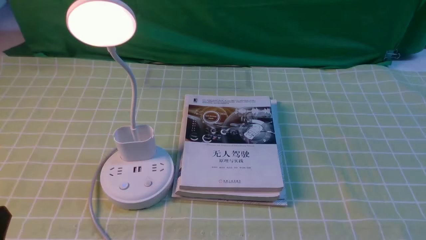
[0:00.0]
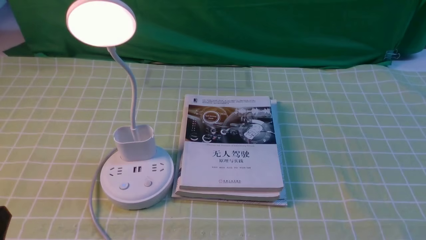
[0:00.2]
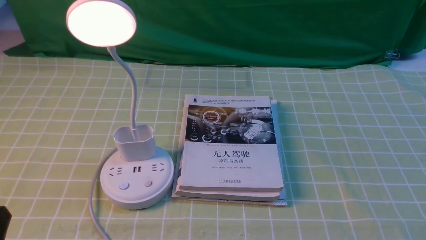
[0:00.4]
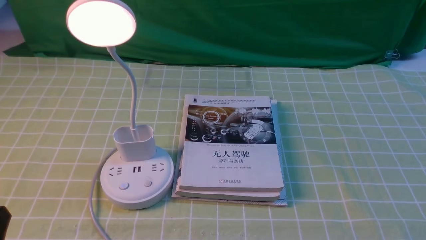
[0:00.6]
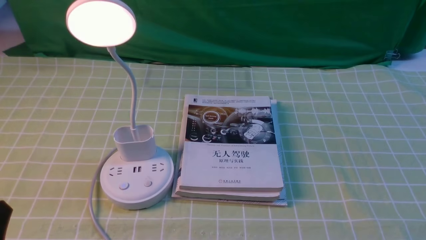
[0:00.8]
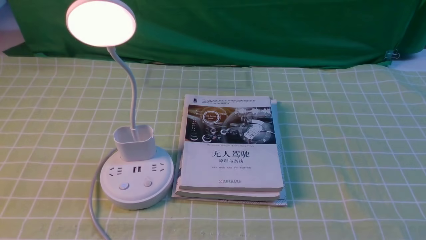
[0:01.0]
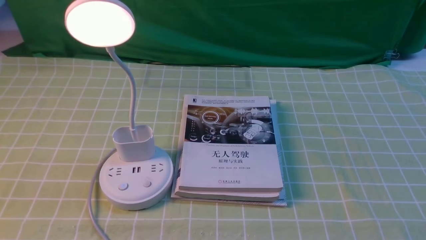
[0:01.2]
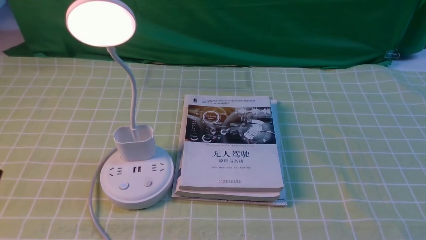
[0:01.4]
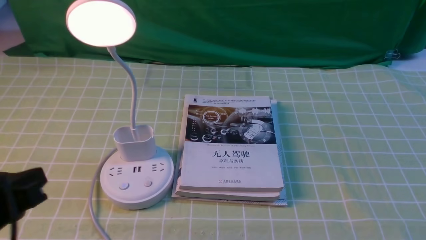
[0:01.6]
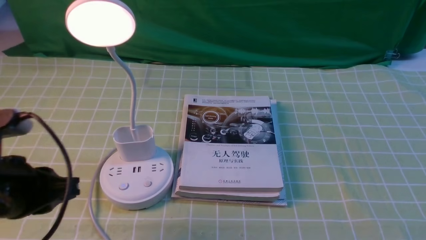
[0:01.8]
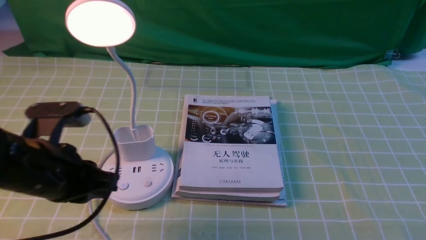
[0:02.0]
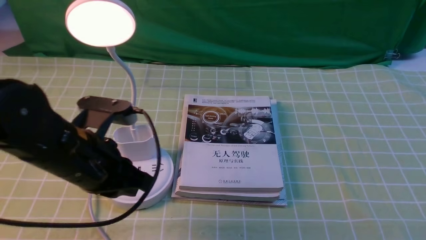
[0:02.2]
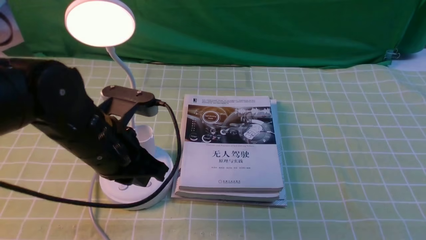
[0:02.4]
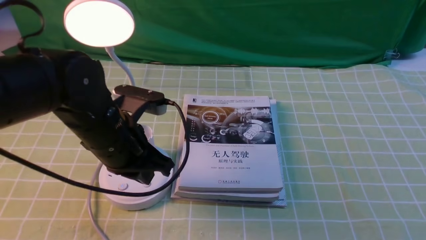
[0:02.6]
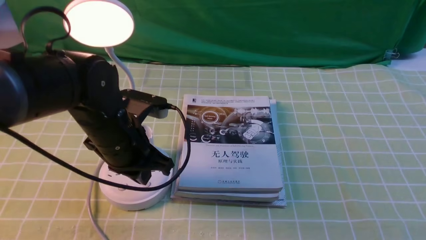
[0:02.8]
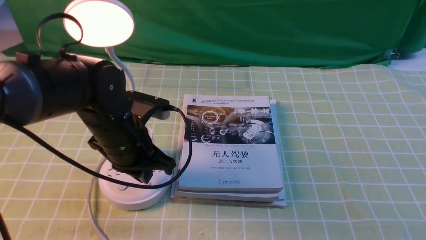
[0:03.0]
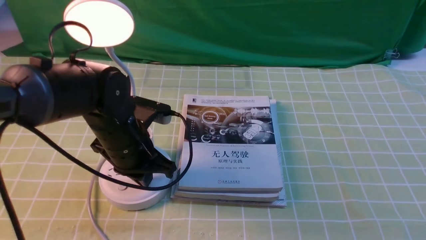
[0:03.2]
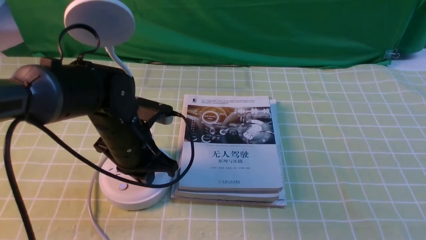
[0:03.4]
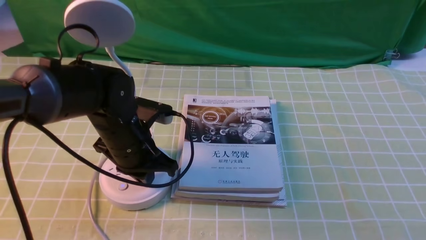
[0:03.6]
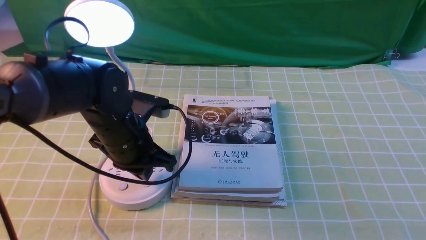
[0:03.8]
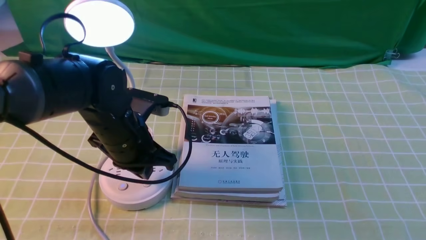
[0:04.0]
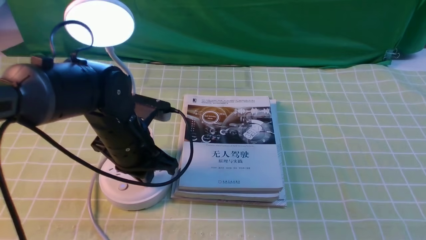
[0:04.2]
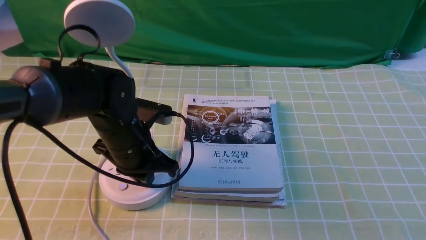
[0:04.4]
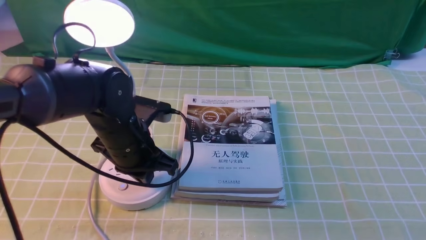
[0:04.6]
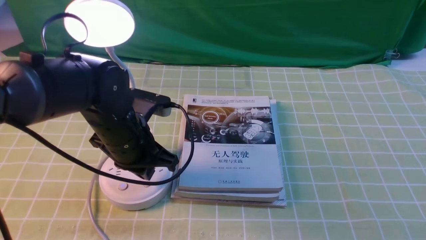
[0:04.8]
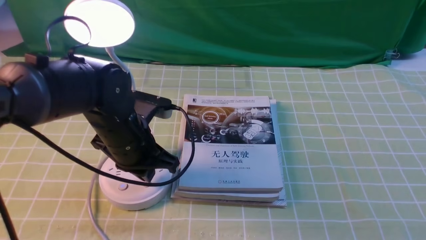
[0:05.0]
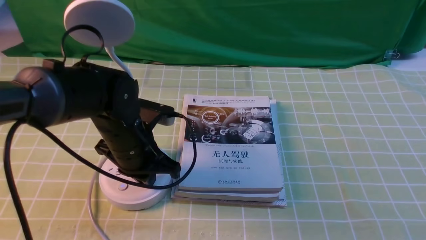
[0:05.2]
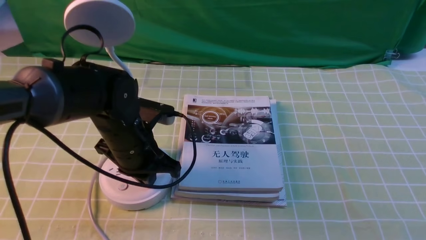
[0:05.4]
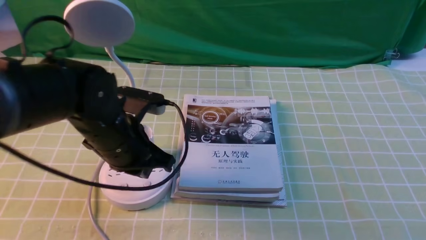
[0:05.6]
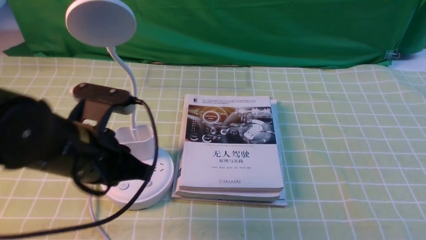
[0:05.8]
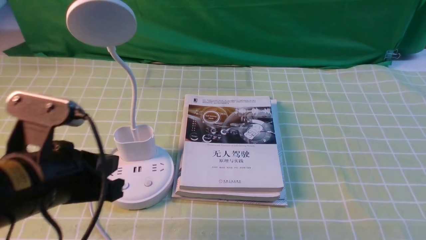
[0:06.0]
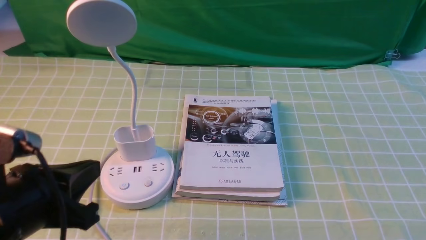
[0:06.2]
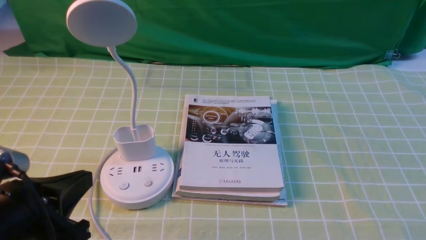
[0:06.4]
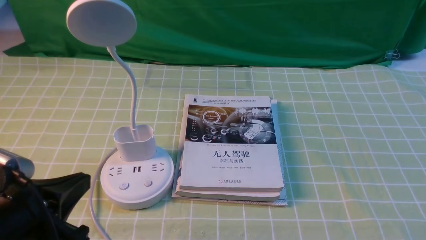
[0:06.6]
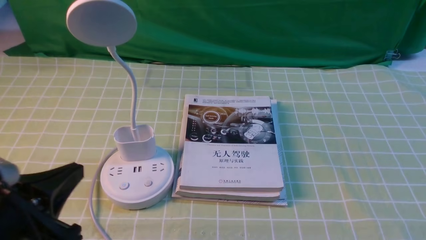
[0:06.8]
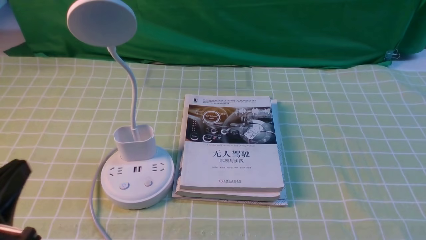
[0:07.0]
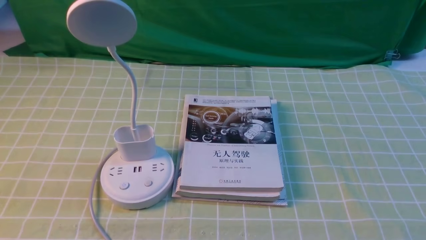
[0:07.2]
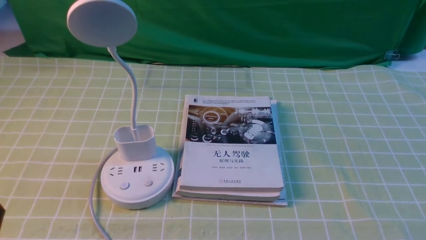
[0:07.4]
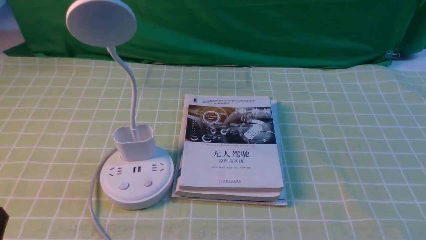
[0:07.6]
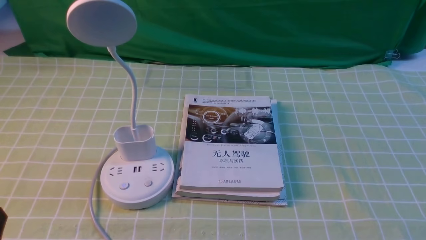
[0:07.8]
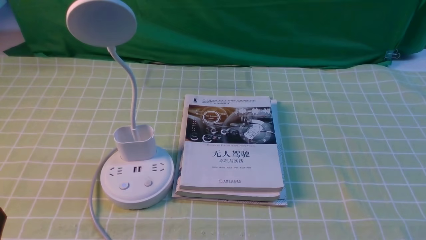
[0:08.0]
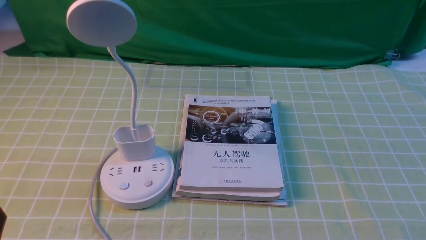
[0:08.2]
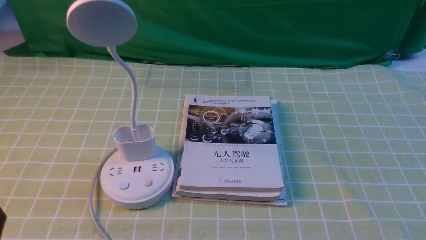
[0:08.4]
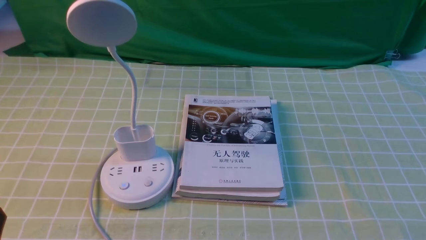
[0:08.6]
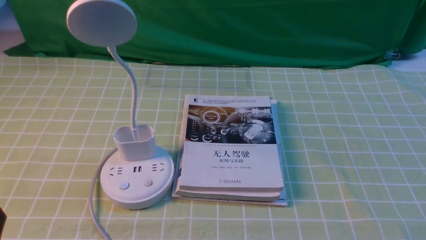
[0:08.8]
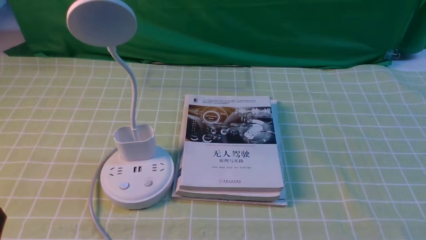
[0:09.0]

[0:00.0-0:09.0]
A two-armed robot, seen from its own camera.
Task of the whole recording: turn off the desk lamp on the green coffee tablecloth by hand.
Step, 0:00.0 to 0:05.6: use the left arm to press the button switch on the lamp holder.
0:01.6 to 0:03.0: The left gripper travels forward and to the right by approximately 25 cm.
0:03.0 to 0:04.4: The grippers make only small movements.
0:04.4 to 0:06.0: The left gripper is displaced backward and upward by approximately 15 cm.
0:06.0 to 0:07.6: The left gripper shifts some 20 cm backward, to the left and downward.
0:07.6 to 0:09.0: Neither gripper changes place.

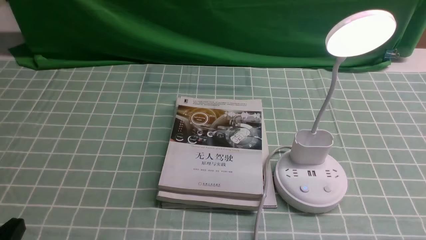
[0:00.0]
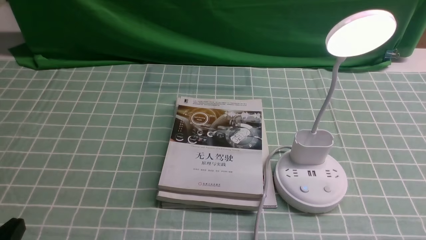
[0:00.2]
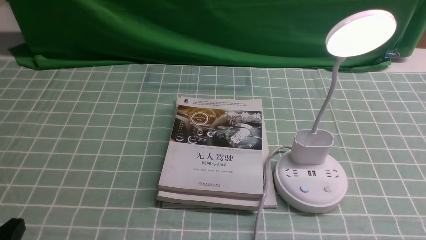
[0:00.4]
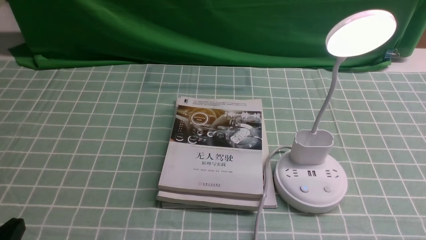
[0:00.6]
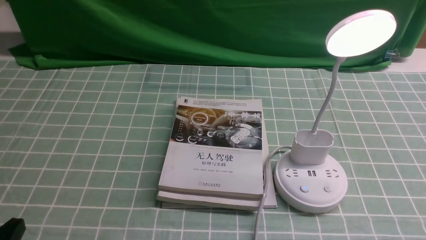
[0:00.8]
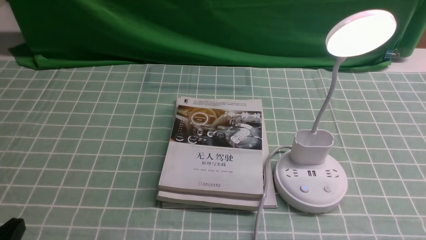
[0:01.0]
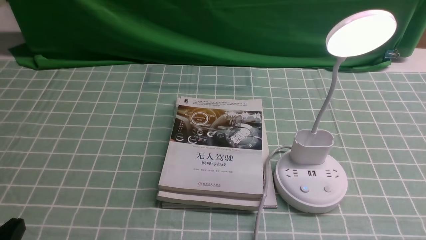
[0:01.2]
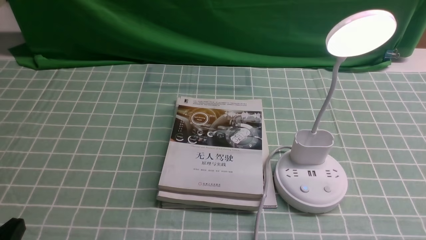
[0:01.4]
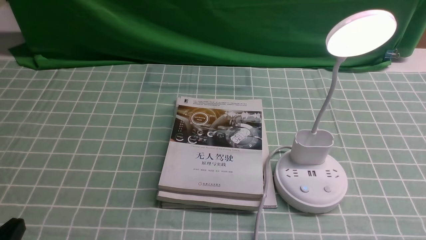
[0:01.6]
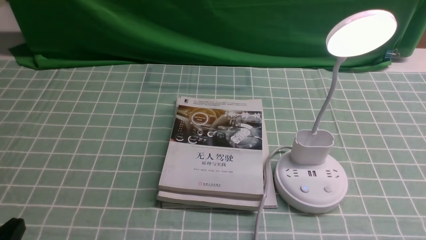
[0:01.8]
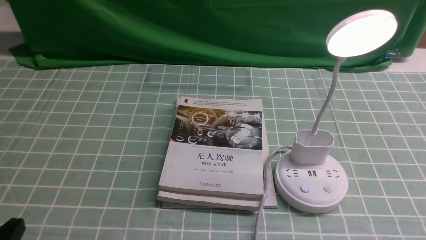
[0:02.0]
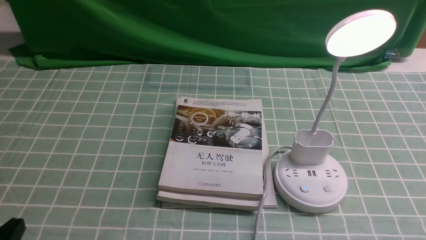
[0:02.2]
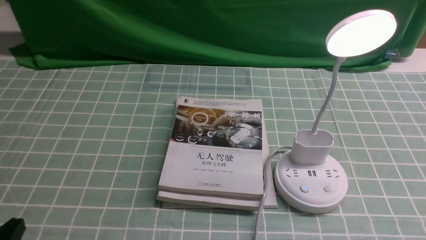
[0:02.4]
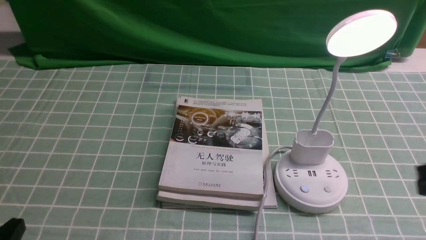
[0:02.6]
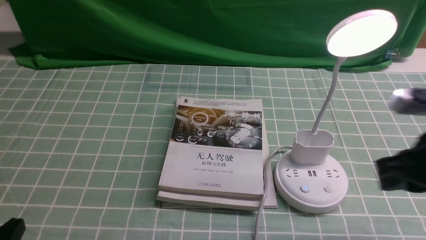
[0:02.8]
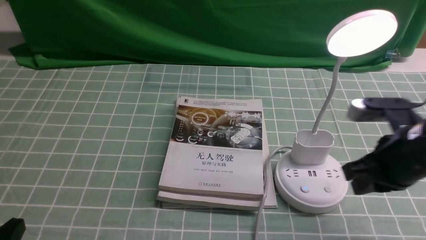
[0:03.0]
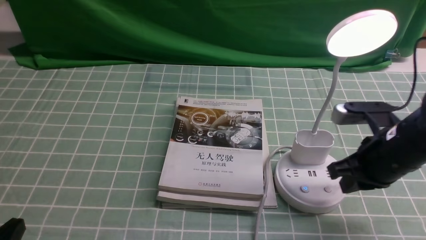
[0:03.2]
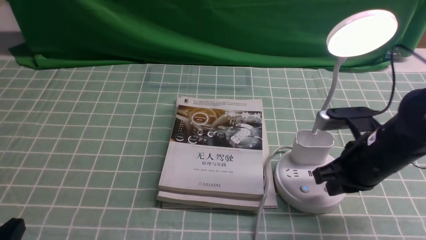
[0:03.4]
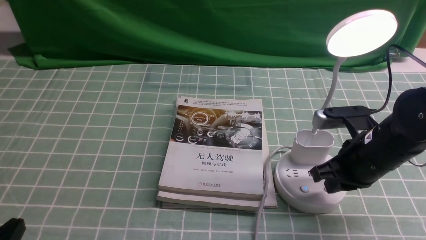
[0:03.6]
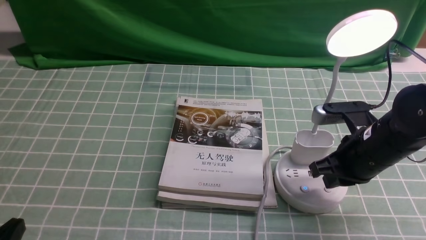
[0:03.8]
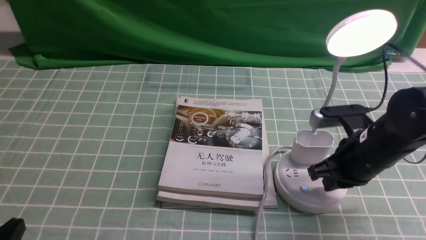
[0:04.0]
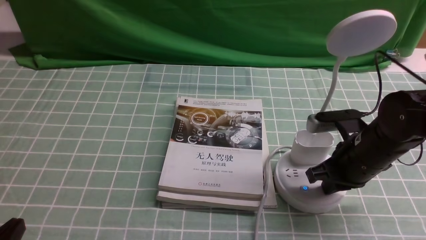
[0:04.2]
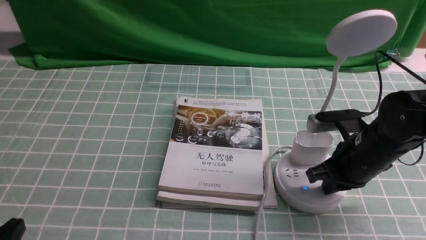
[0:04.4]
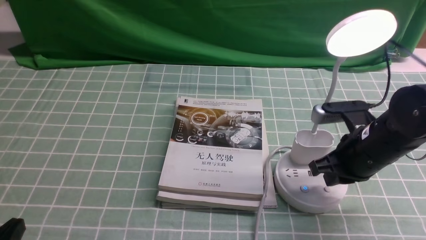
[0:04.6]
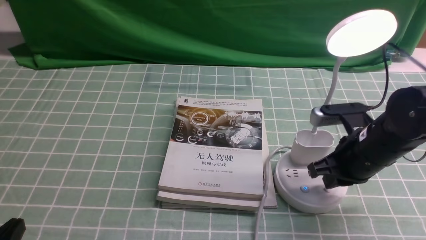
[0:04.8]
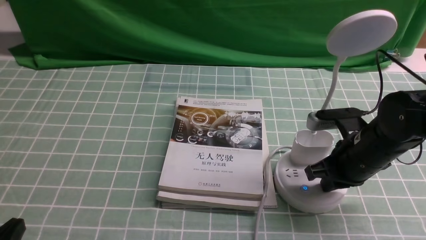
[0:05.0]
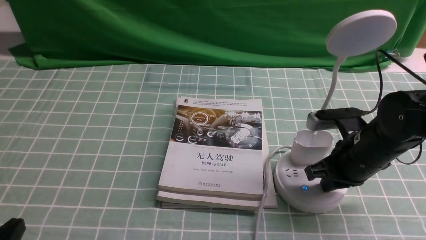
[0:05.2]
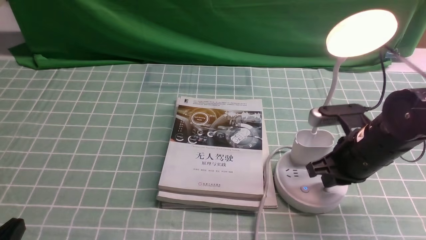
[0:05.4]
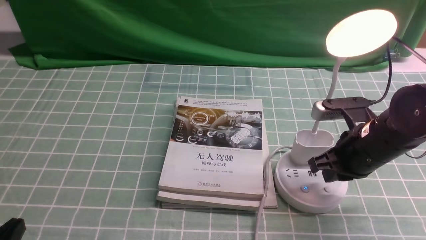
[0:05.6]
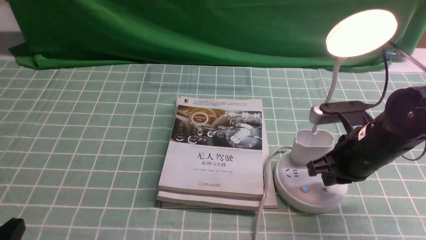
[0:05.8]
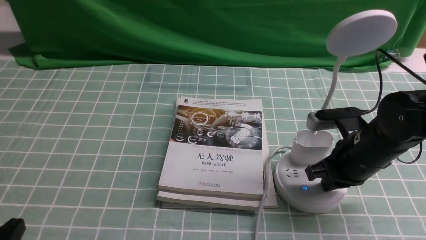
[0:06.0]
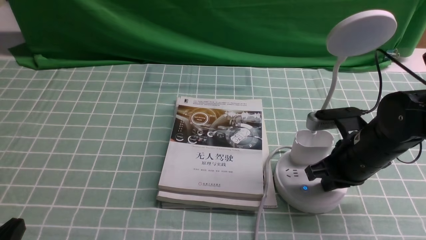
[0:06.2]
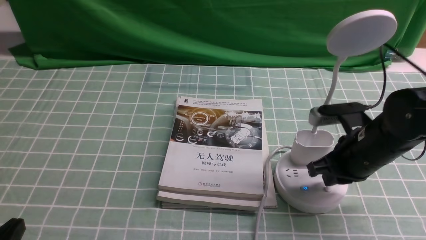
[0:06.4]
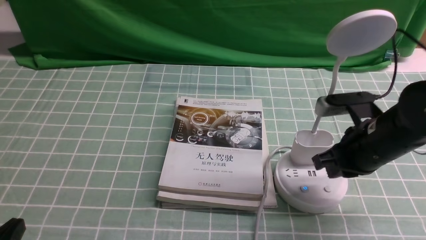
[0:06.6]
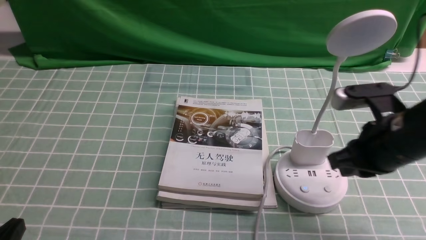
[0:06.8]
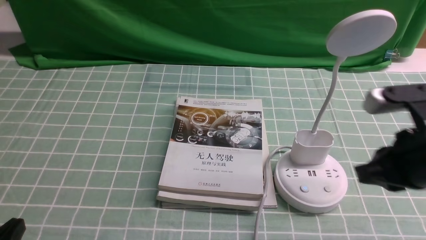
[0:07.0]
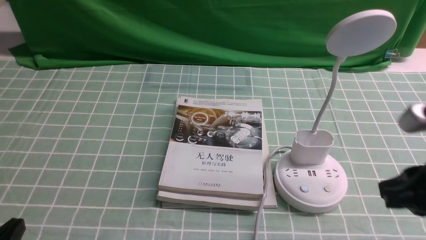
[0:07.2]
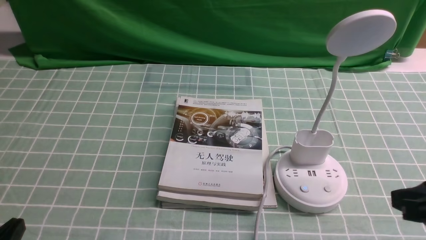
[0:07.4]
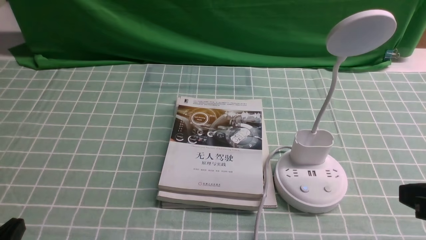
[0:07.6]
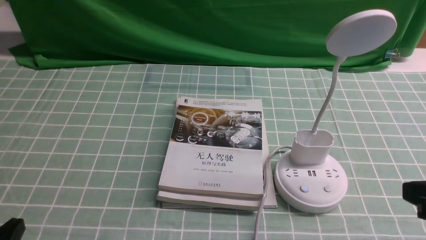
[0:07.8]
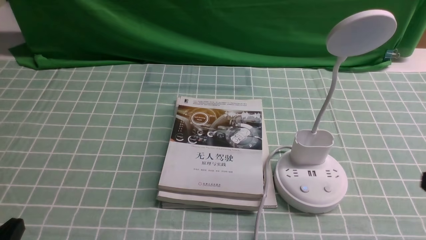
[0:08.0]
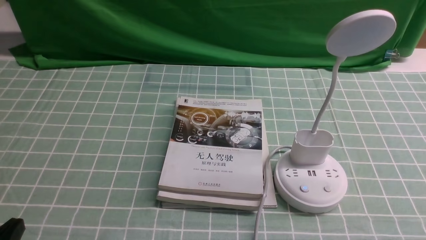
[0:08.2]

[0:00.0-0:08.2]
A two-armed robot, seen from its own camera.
Task of the whole recording: turn off the desk lamp on the blue coffee tablecloth by hand.
Step, 0:00.0 to 0:06.4: use the right arm to press the button switch on the lamp holder.
0:01.6 to 0:03.2: The right gripper heads forward and to the left, covering approximately 20 cm, and closes up.
0:03.2 to 0:06.6: The grippers stay close to where they were, moving slightly.
0:06.6 to 0:08.2: The right gripper heads backward and to the right, covering approximately 20 cm.
